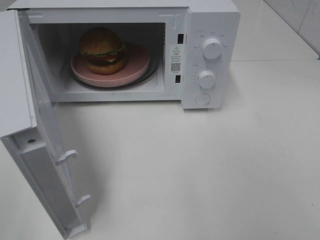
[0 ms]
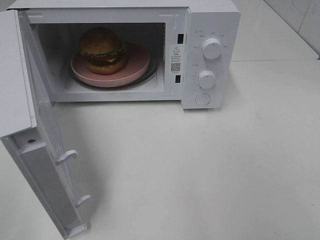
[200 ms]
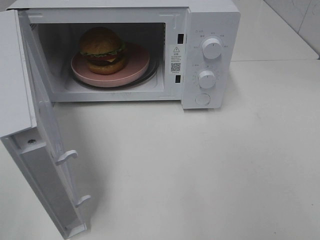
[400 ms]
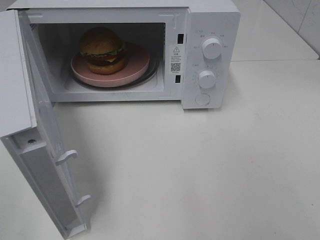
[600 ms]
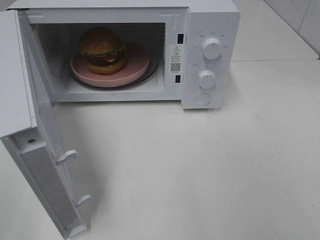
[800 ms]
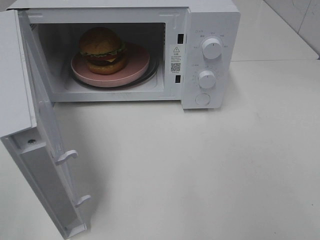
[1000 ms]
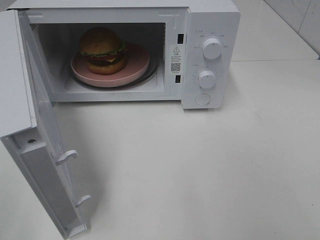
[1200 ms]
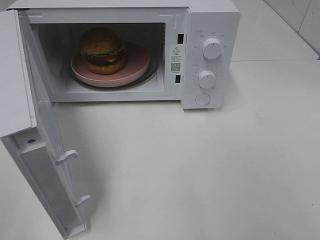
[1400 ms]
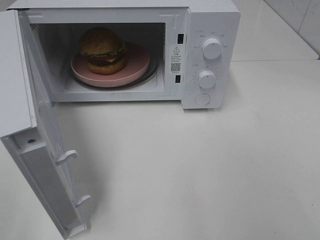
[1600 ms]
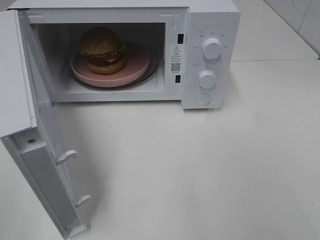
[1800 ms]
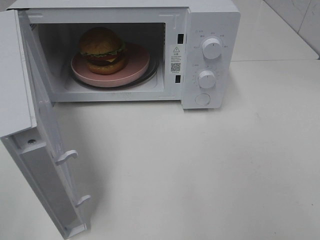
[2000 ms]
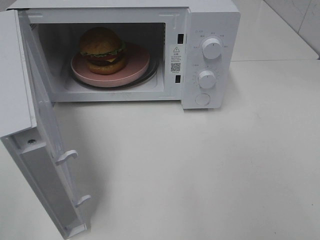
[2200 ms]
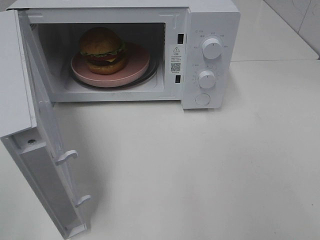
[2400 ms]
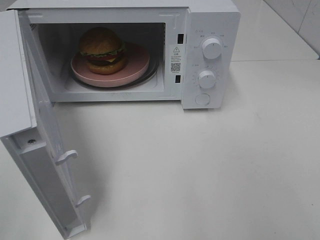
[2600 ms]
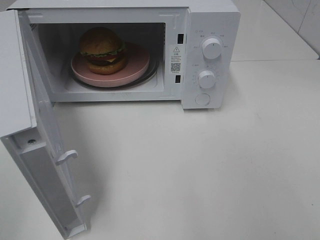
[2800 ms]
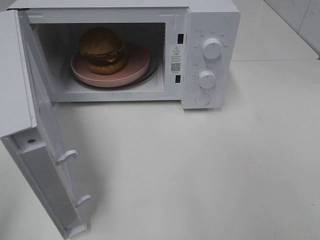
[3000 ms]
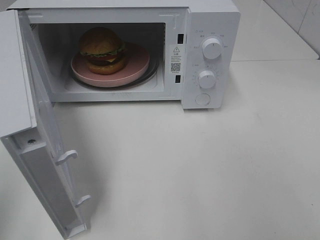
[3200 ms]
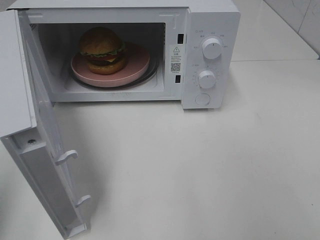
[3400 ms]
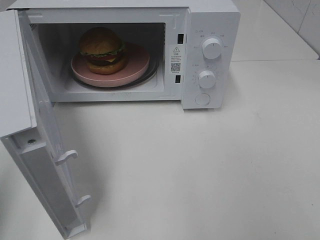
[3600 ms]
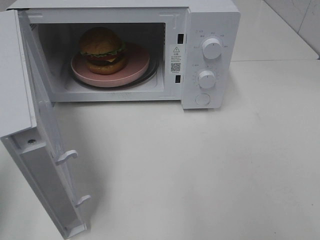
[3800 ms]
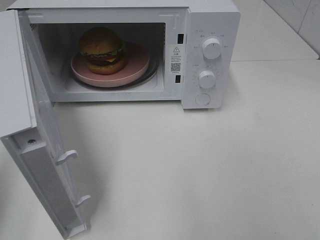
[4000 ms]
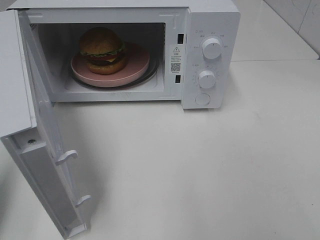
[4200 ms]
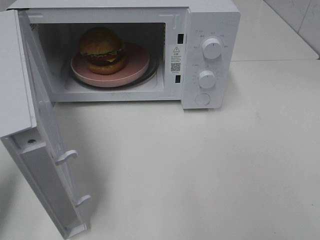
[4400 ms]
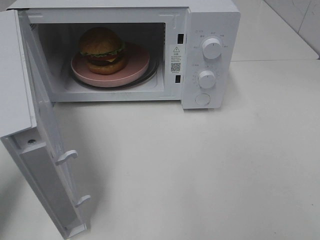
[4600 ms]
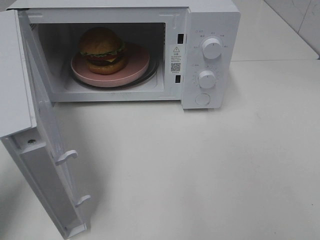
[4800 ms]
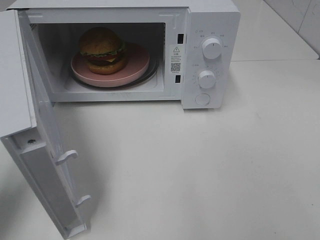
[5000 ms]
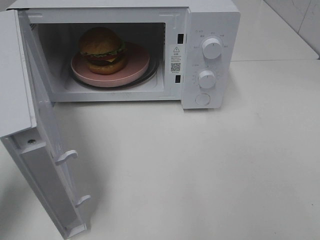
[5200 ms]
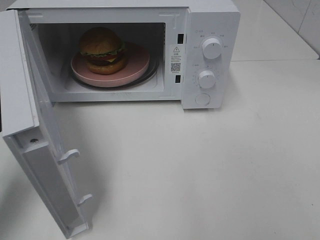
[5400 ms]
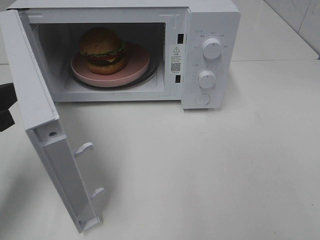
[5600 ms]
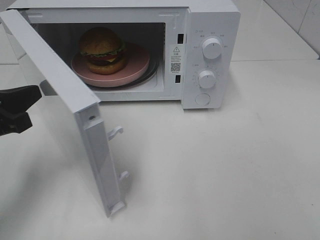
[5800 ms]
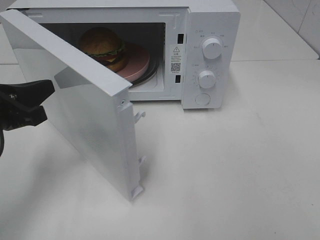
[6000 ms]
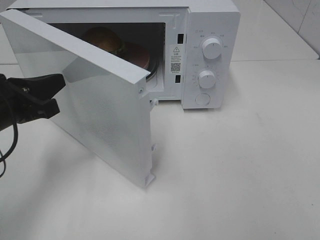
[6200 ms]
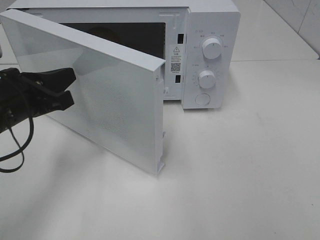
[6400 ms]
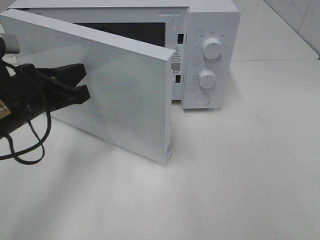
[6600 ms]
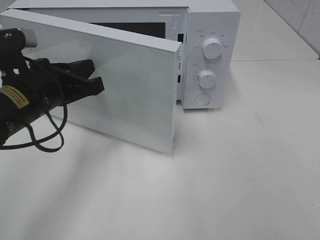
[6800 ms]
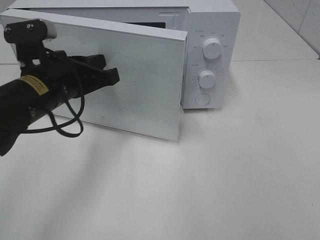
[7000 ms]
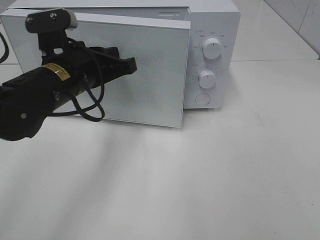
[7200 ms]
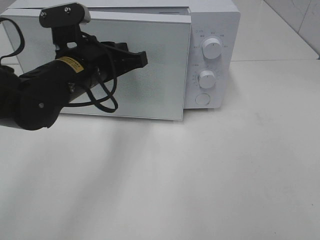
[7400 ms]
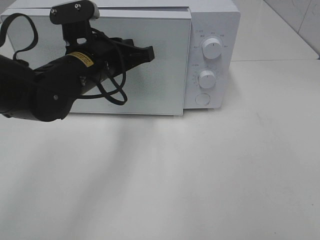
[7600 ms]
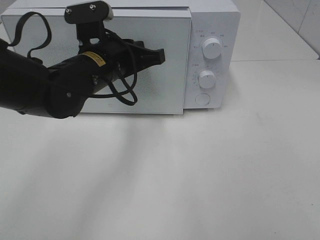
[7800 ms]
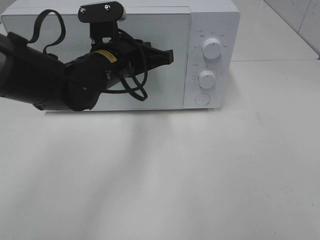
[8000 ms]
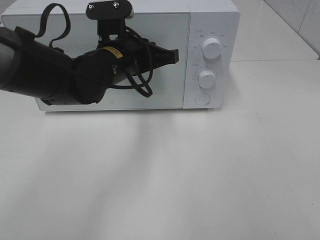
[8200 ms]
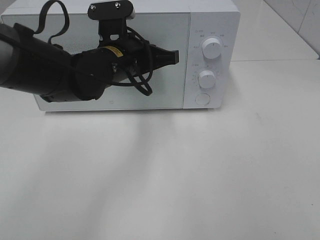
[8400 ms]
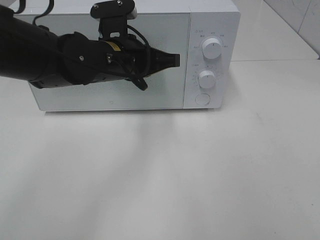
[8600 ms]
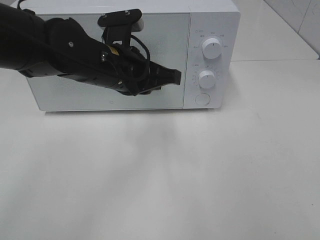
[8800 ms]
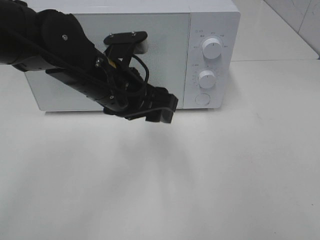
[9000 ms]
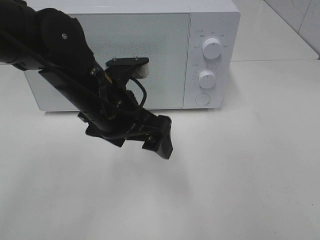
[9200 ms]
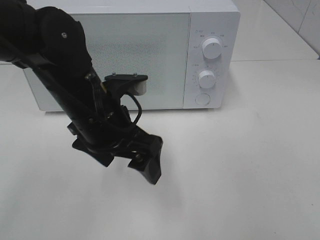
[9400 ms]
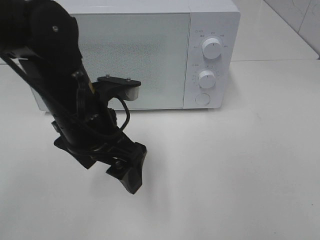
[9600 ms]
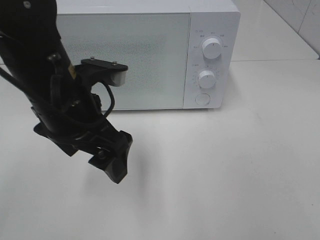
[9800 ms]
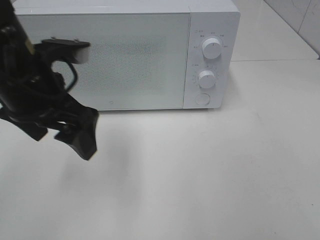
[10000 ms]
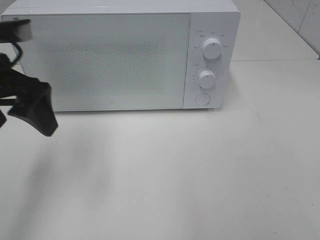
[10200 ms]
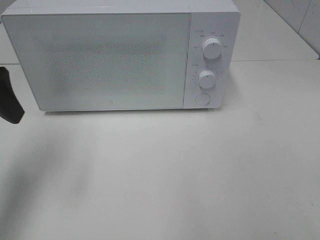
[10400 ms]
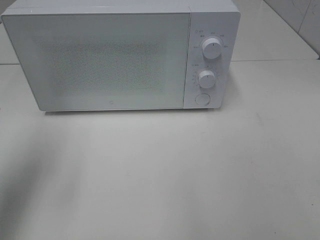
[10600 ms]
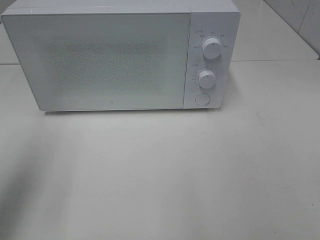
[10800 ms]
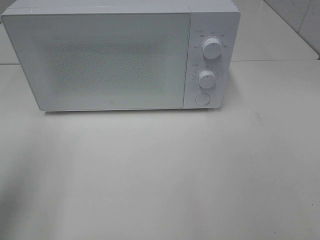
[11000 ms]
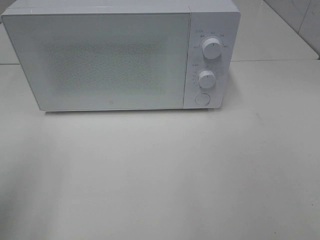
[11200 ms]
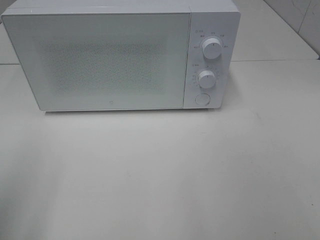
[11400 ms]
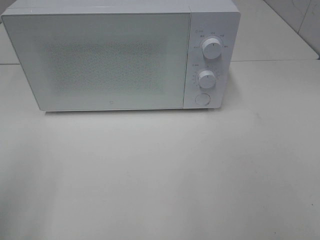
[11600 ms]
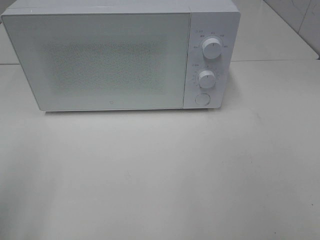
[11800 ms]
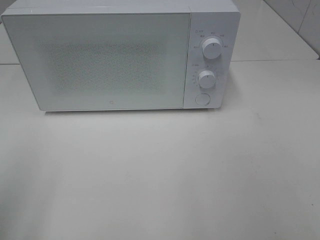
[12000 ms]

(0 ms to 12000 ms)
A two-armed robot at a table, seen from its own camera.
Task of the whole recording: Heat the burger.
Step, 0 ms - 8400 ms: Left hand: close the microwave door.
3000 ms - 4400 ms: The left gripper is displaced forward and downward by roughly 15 cm.
4400 ms - 6000 ms: The left gripper shifts approximately 10 cm forward and to the right.
6000 ms - 7600 ms: The left gripper goes about 15 cm to the right and forward.
7600 ms - 9000 ms: The left gripper opens its fingers.
9000 ms - 10400 ms: The left gripper travels to the left and upward by approximately 20 cm.
10400 ms - 12000 ms: The left gripper goes roughly 15 cm backward.

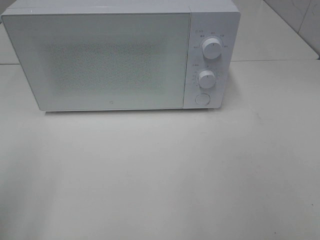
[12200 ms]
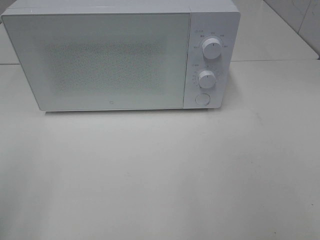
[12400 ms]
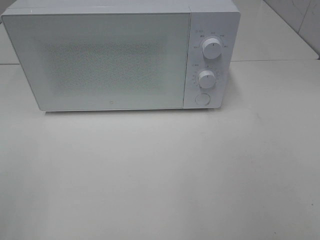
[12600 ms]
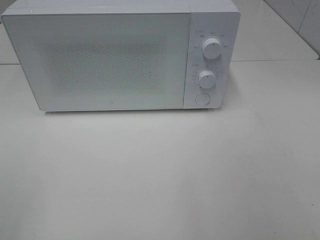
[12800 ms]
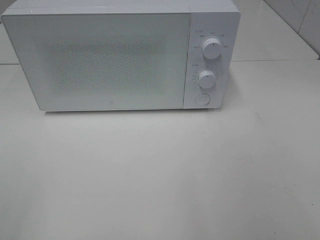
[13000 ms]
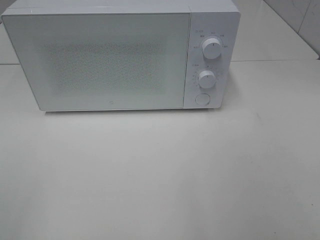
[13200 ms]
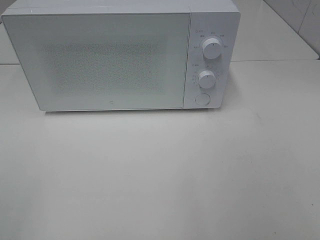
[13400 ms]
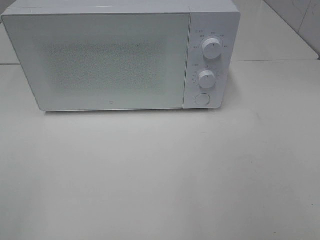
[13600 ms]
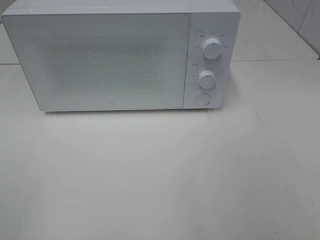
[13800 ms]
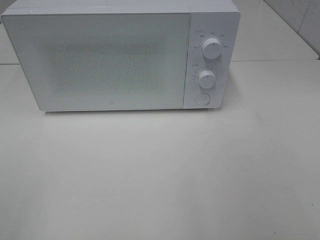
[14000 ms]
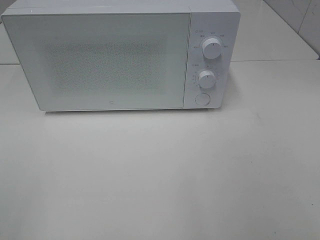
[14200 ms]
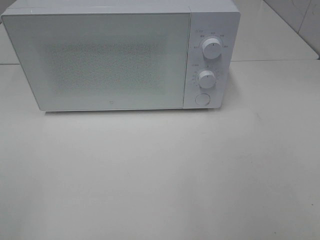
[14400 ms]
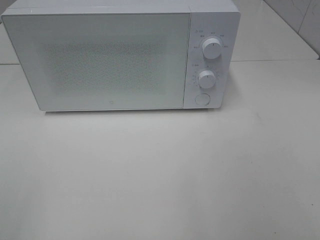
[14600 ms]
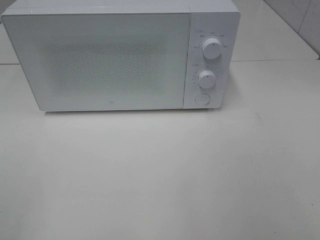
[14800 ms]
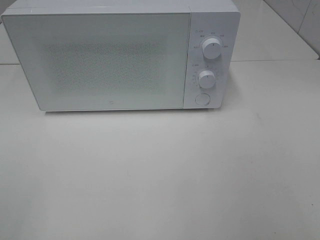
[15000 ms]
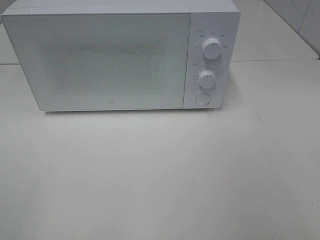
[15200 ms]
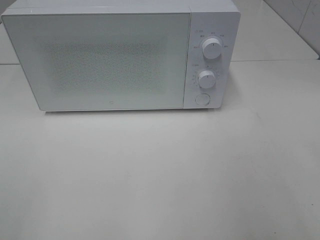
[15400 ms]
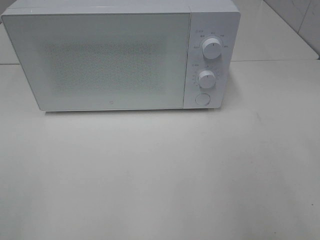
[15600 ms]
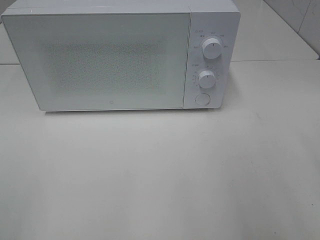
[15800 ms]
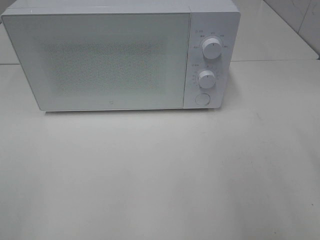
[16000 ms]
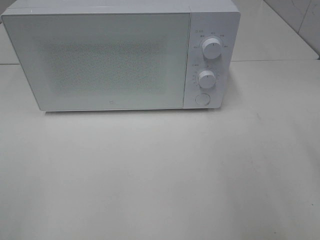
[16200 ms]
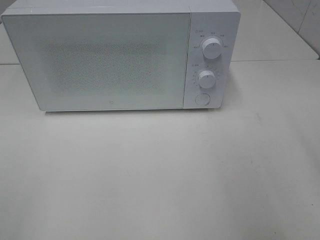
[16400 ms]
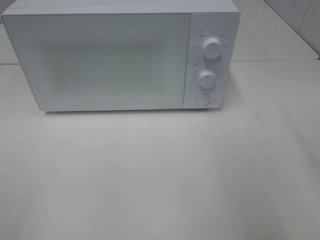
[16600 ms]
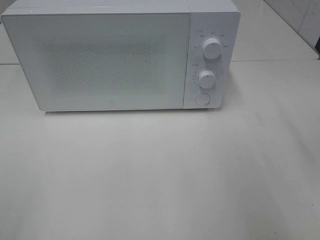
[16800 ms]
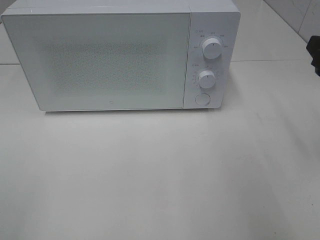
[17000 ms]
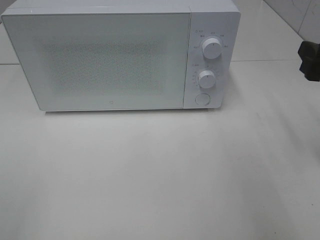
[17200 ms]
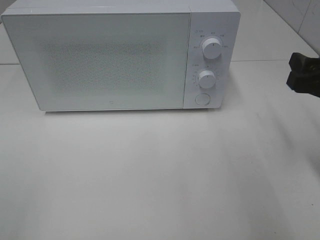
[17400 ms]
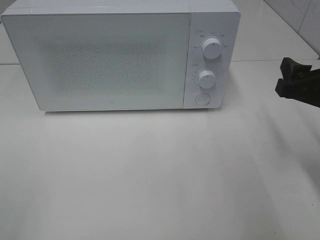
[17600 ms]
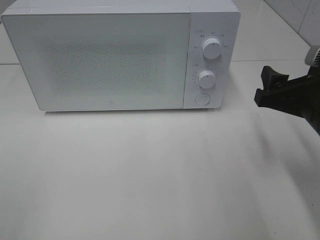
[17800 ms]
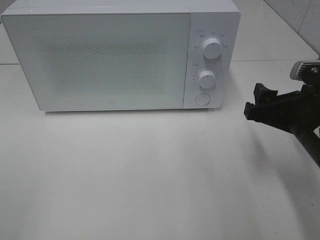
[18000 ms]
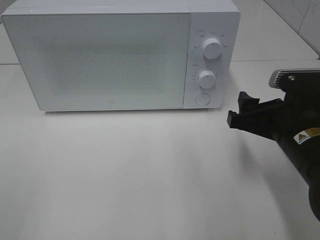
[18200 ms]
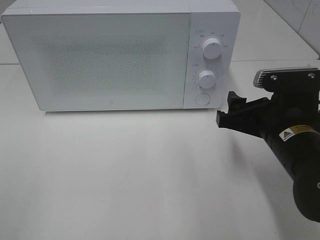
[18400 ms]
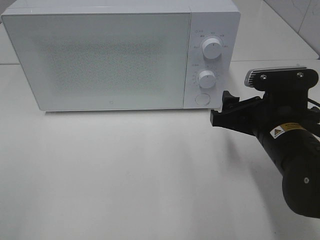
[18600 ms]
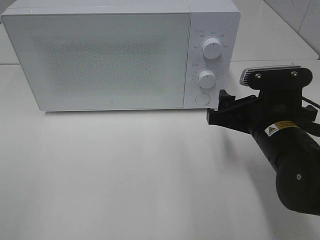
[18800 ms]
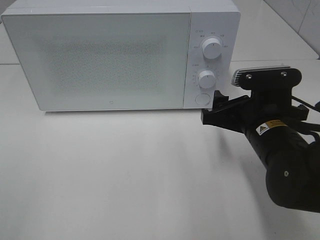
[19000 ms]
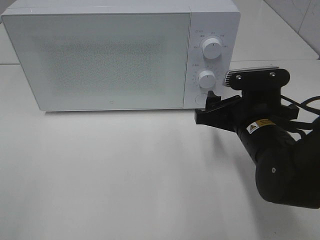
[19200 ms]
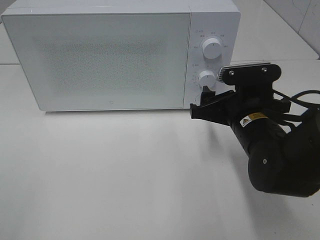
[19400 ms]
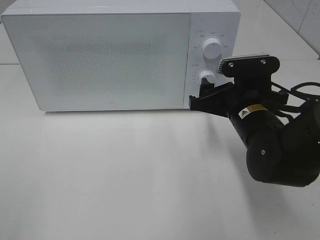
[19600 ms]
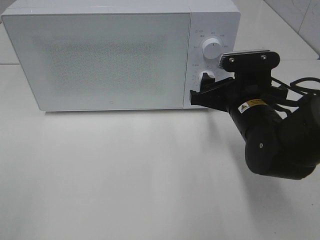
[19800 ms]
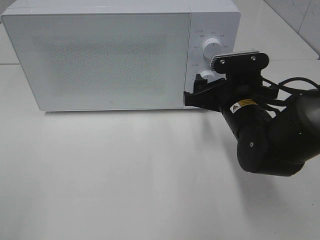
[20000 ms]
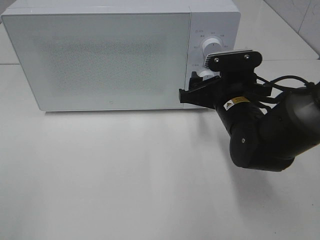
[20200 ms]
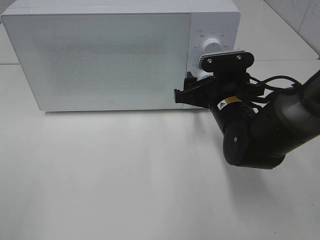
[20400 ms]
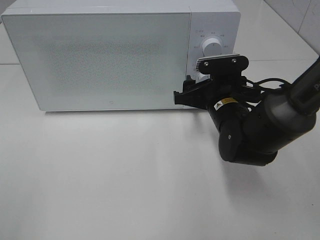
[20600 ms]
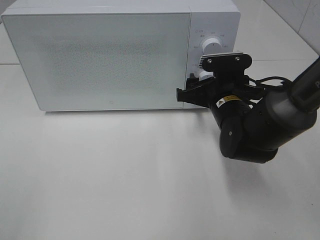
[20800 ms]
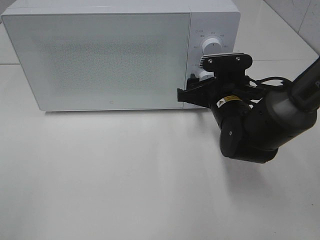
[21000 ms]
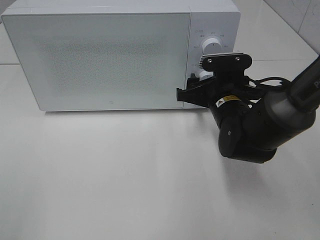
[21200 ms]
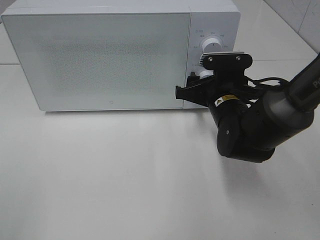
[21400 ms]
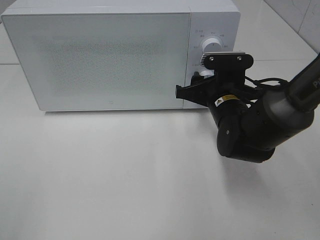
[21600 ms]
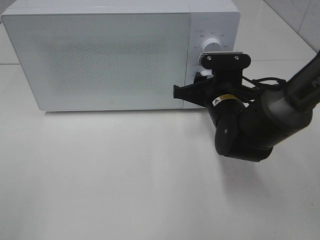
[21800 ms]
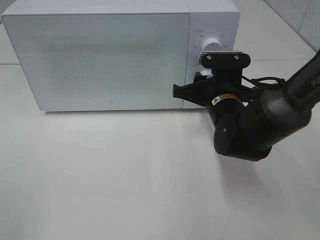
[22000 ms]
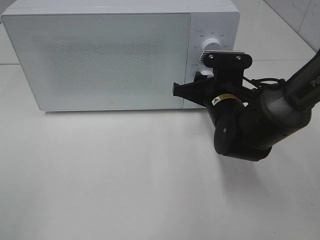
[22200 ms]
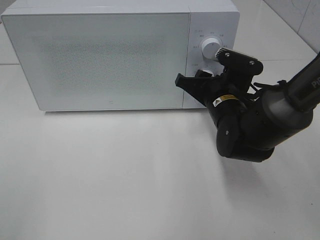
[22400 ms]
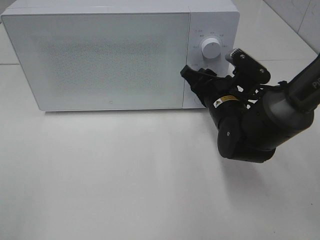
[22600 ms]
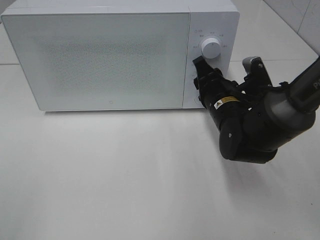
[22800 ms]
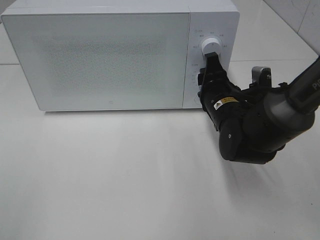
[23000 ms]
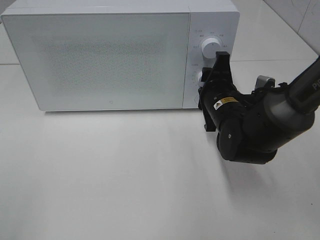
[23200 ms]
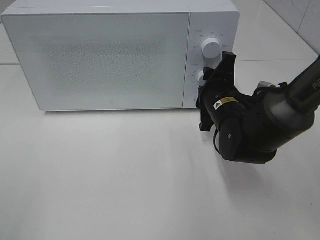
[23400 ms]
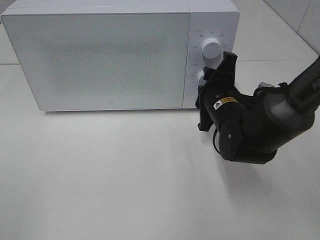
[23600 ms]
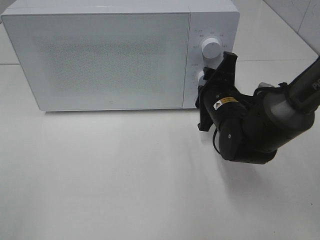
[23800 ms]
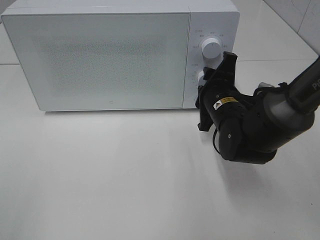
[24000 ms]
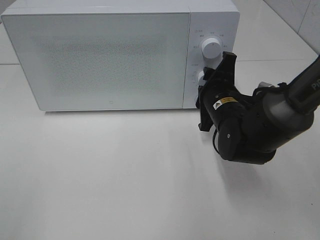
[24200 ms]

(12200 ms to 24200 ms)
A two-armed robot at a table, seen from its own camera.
Task of the whole recording: Heat the burger.
16600 ms - 18200 ms: The right gripper shifts approximately 15 cm downward and to the left.
18200 ms - 19800 ms: The right gripper is displaced forward by roughly 5 cm.
19800 ms - 21200 ms: The right gripper shifts by some 5 cm.
21200 ms - 22600 ms: The right gripper closes its fingers.
